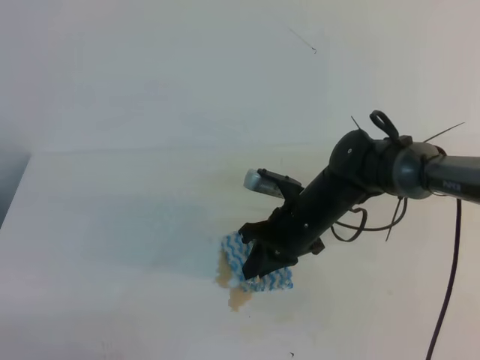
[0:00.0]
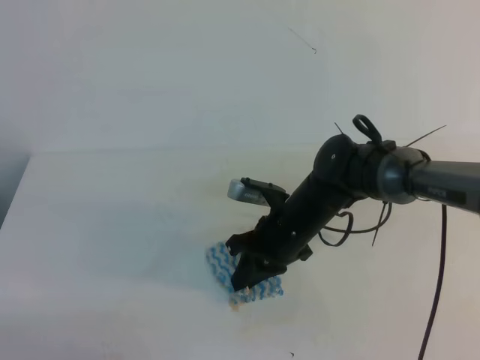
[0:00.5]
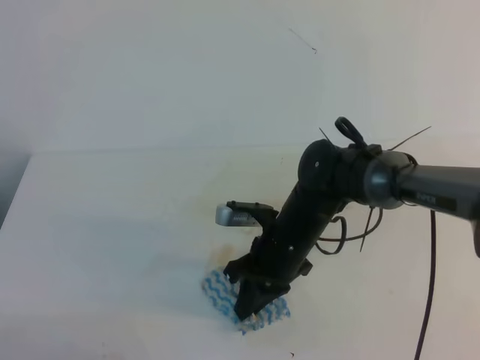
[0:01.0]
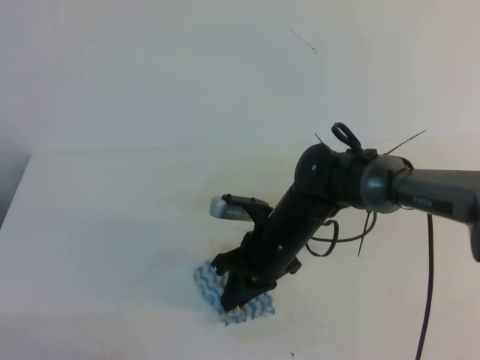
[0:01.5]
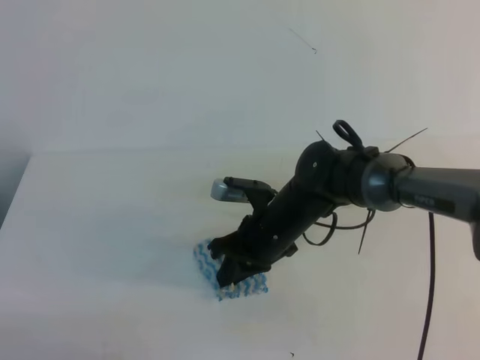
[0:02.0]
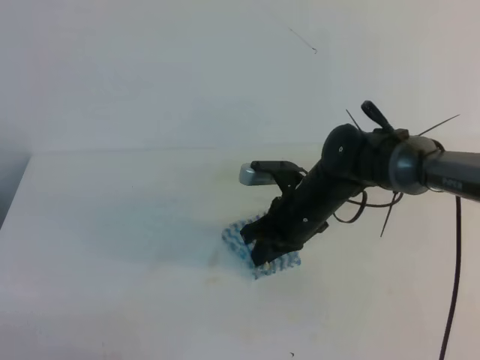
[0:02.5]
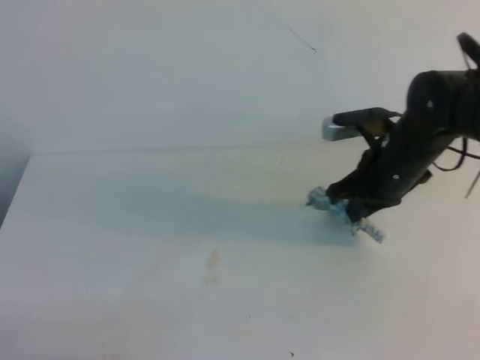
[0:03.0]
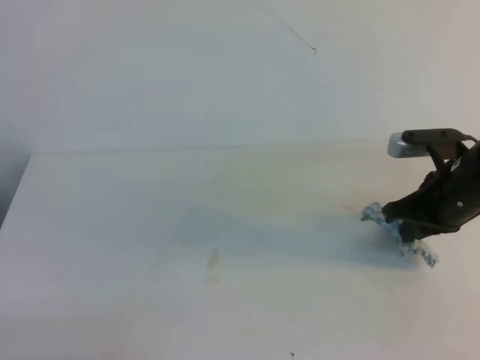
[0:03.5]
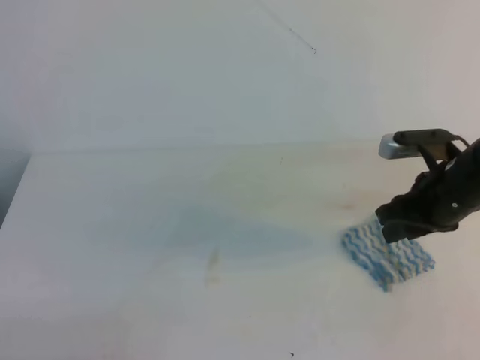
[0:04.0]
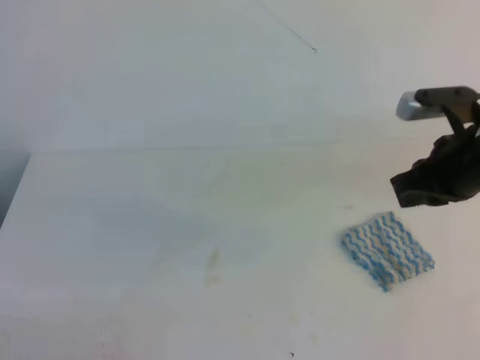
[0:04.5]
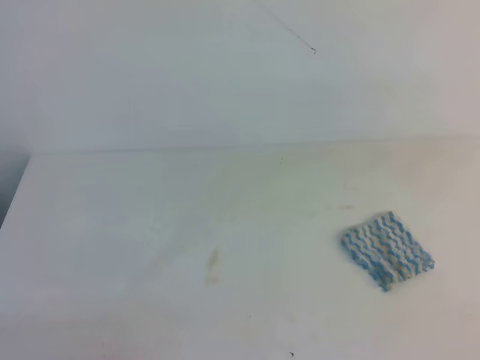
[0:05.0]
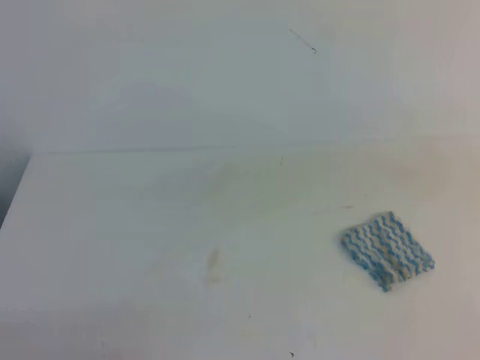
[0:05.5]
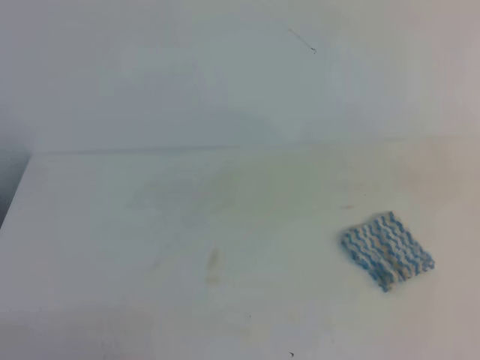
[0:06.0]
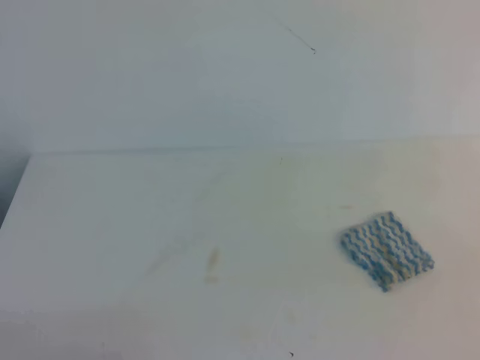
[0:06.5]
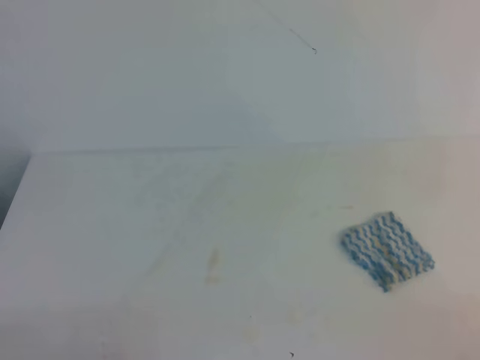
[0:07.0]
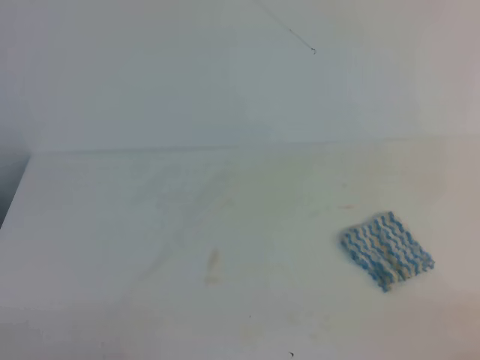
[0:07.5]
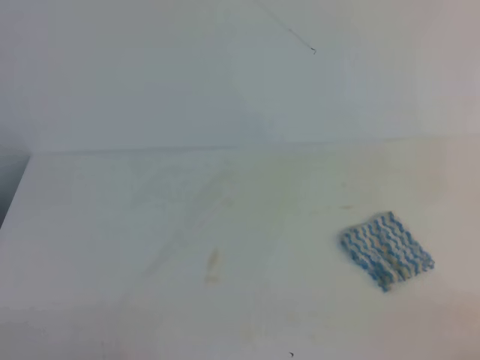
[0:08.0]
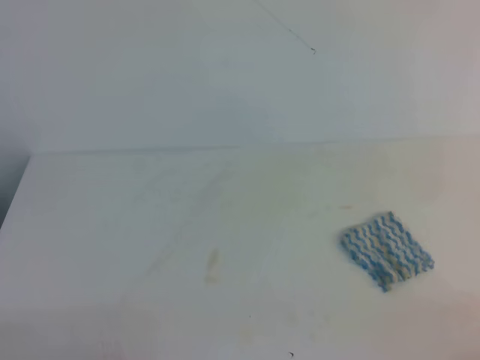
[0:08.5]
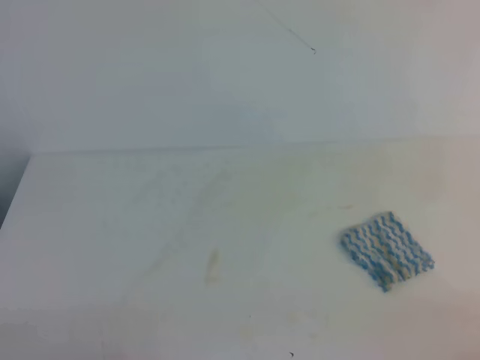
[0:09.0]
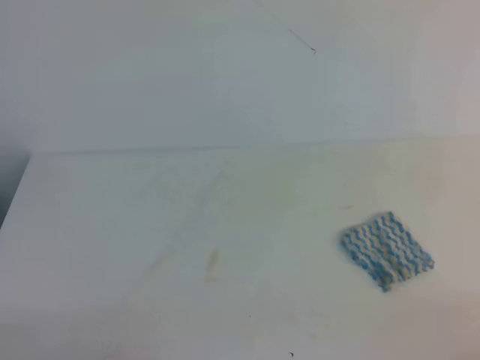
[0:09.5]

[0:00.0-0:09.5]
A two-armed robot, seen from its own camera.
0:00.0 to 0:02.0: The grippers stay close to where they were, moving slightly.
0:02.0 to 0:04.0: The right gripper is displaced to the right and upward by roughly 20 cm, and opens up.
0:04.0 to 0:05.5: The right gripper goes some 25 cm upward and backward, and closes.
0:07.5 to 0:09.5: Both grippers stay about where they are.
